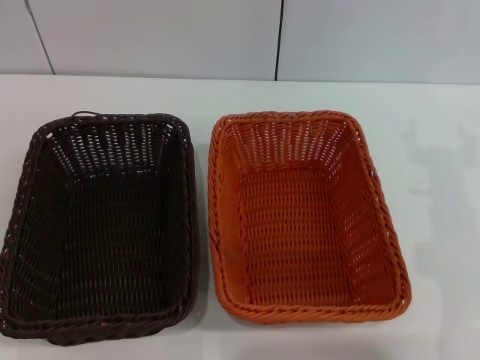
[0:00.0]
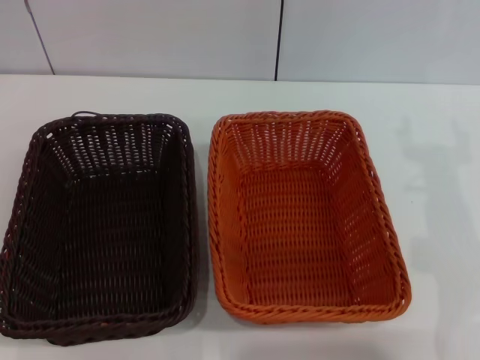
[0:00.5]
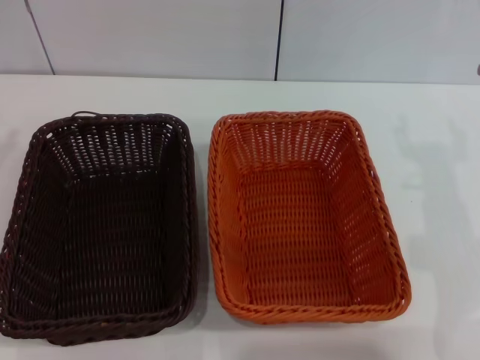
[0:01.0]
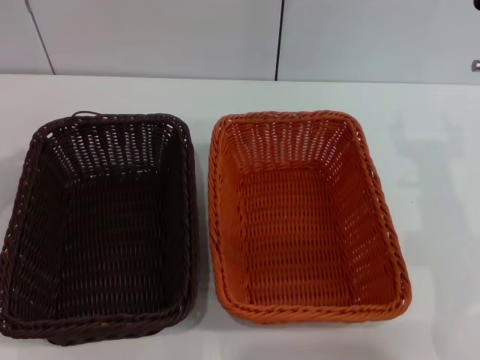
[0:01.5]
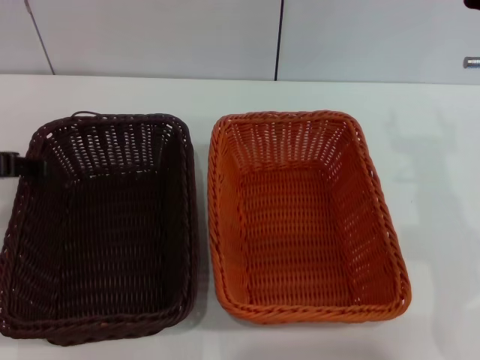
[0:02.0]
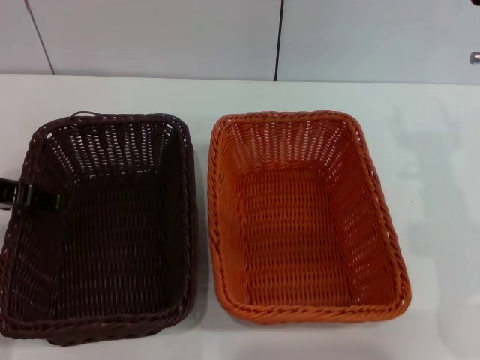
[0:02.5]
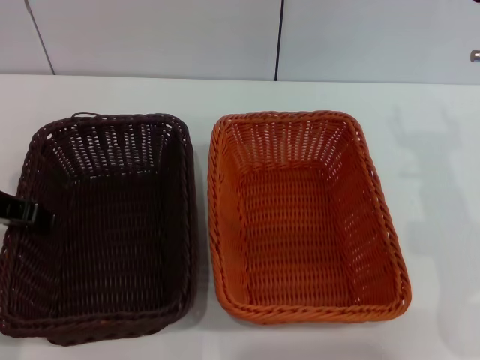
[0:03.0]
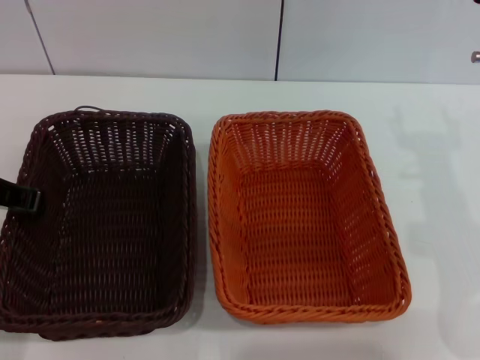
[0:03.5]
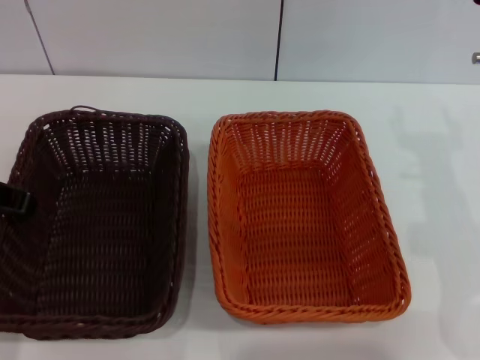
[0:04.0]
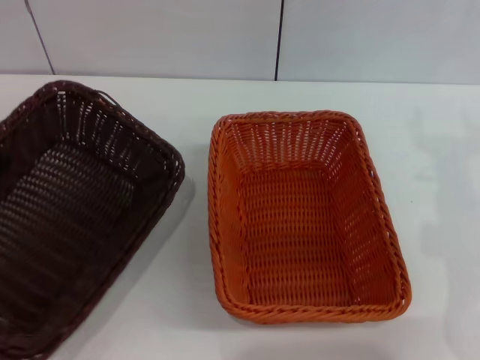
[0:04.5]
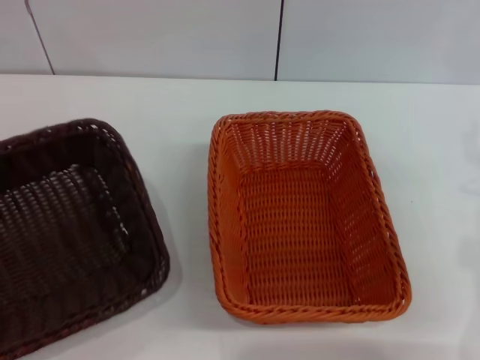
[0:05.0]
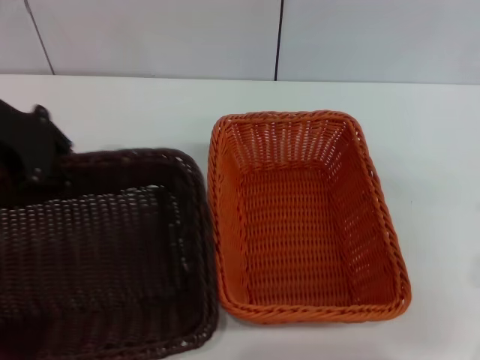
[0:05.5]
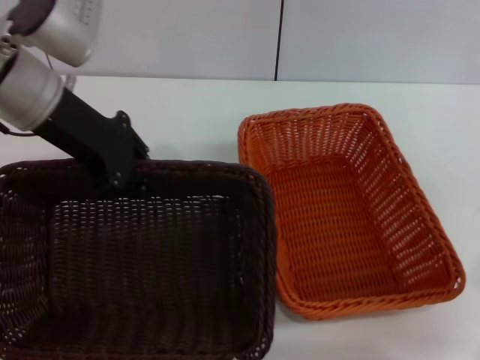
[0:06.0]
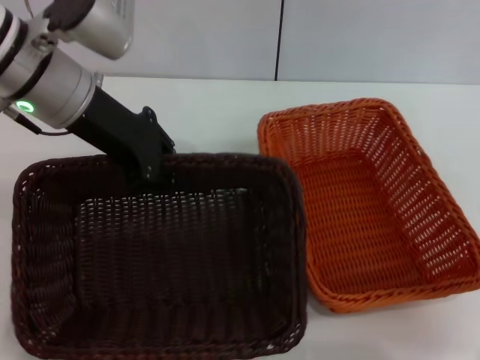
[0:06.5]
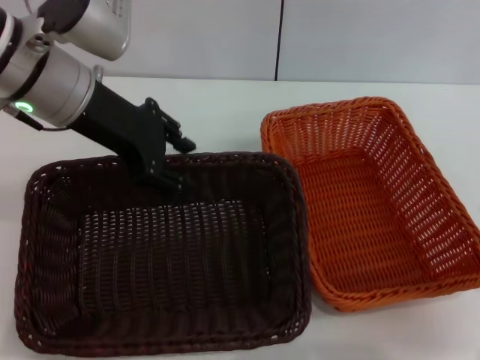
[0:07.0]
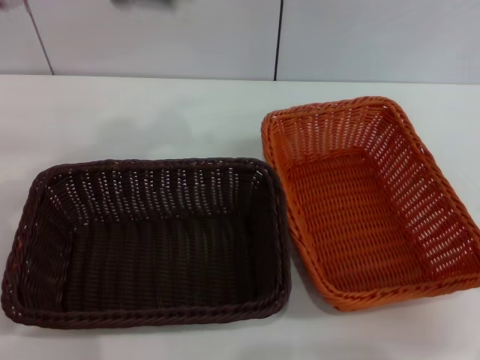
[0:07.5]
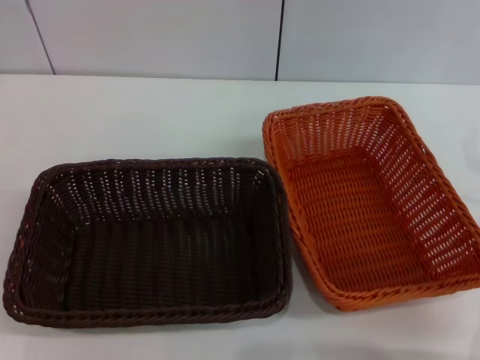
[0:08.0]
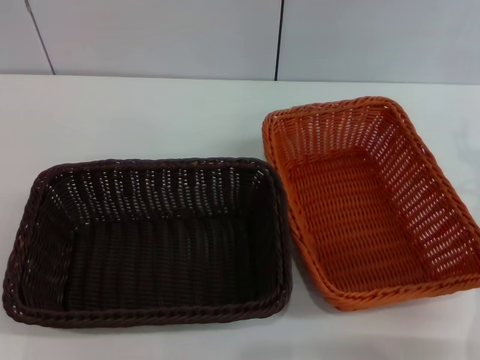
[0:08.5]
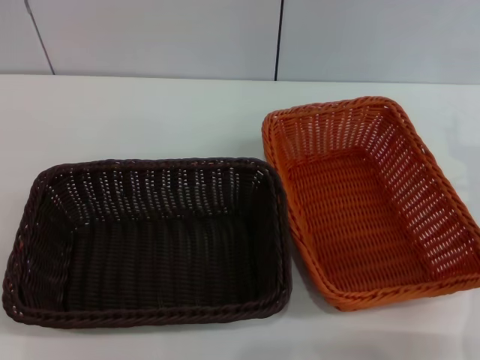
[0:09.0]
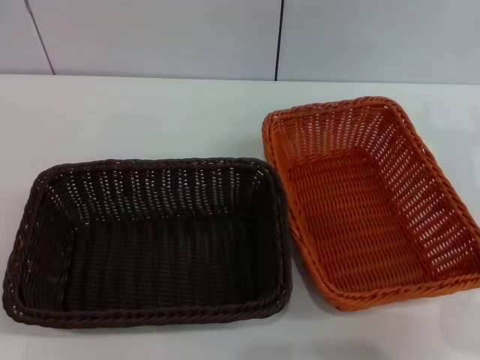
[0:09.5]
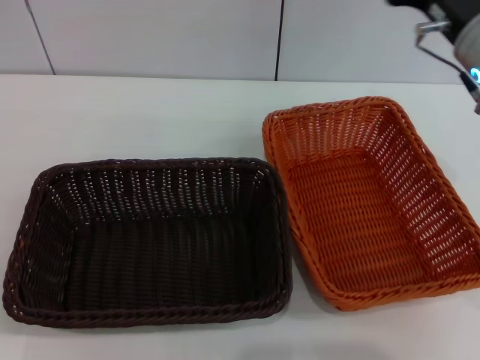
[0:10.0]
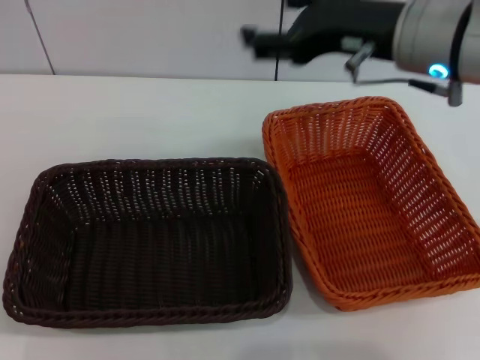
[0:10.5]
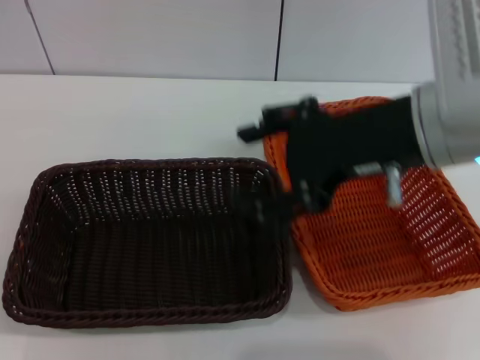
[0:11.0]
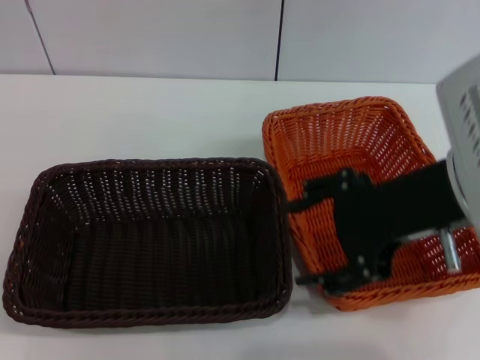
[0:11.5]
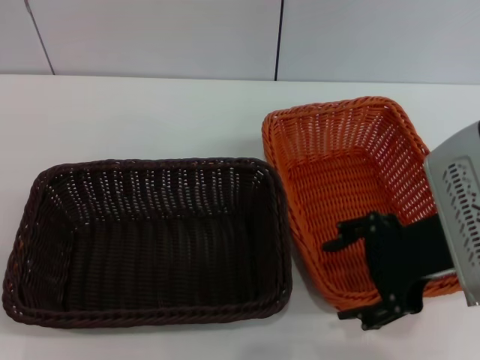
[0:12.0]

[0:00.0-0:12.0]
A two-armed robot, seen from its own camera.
Step, 0:00.0 to 0:04.0: Pick up the dark basket with the left gripper.
Step, 0:05.0 to 0:07.0: Place the dark basket in the center of view with the left gripper.
0:02.0 to 0:04.0: The left gripper closes up.
0:04.0 to 0:06.0: The right gripper shifts approximately 10 cm to the right and backward, while the left gripper goes some 10 cm to the right and forward.
0:06.0 to 0:08.0: The left gripper moves to the left, some 20 cm, and opens its fingers.
0:08.0 to 0:10.0: The right gripper travels upward, to the left and forward by about 15 cm.
0:10.0 to 0:12.0: The right gripper moves backward, approximately 10 cm.

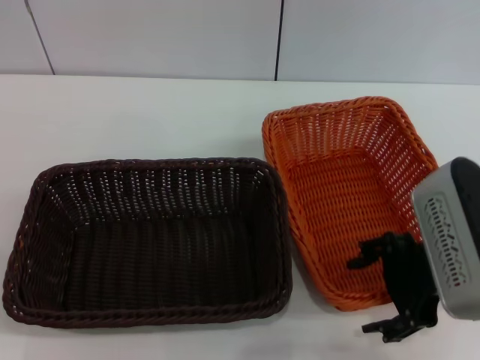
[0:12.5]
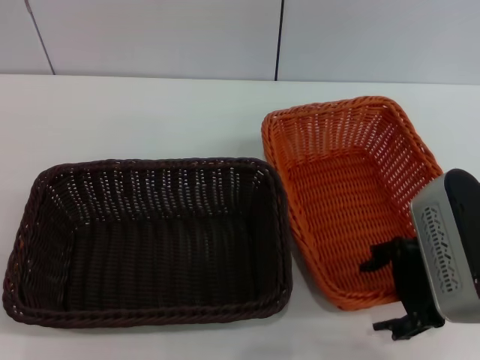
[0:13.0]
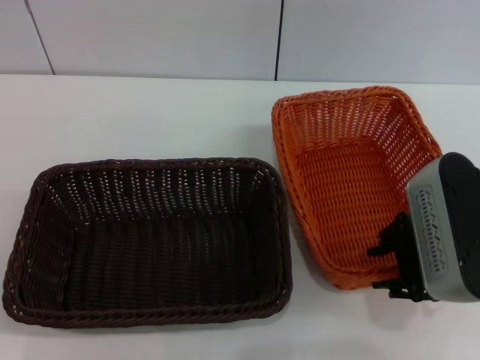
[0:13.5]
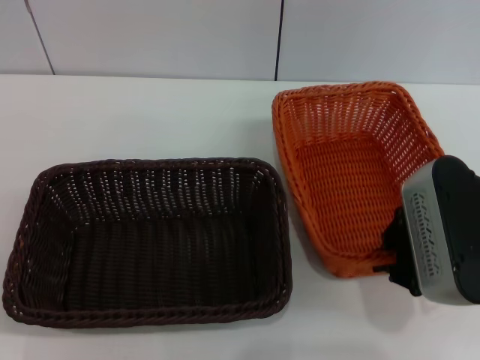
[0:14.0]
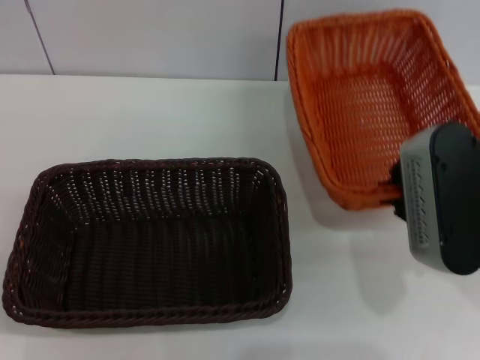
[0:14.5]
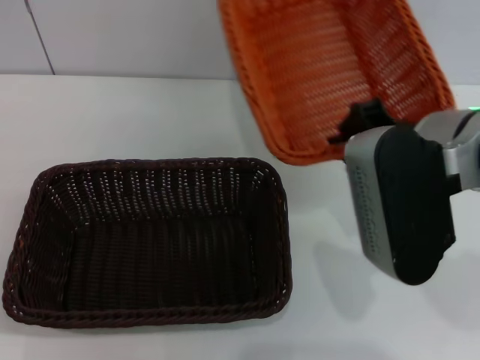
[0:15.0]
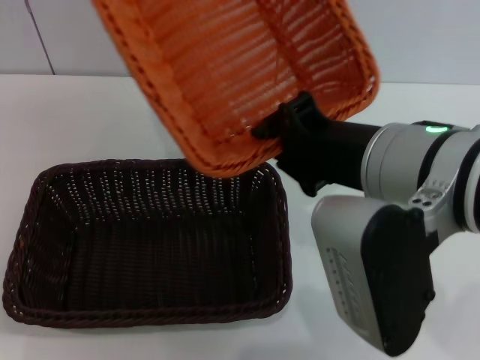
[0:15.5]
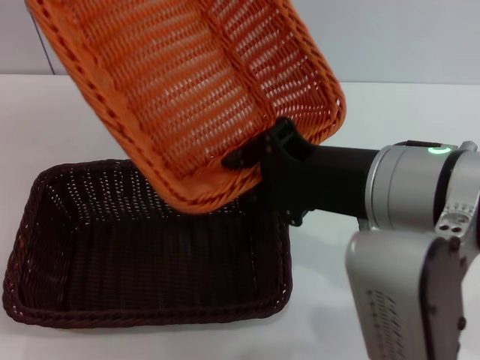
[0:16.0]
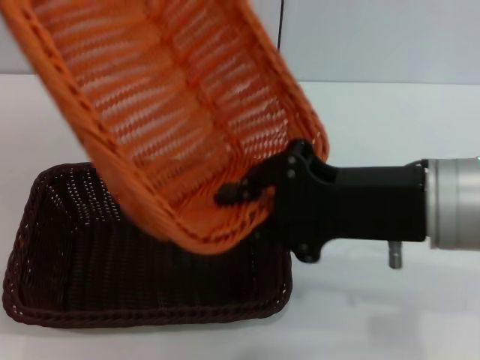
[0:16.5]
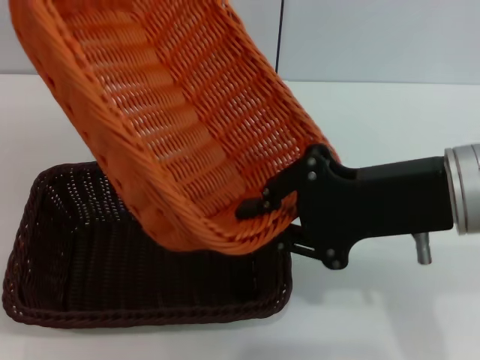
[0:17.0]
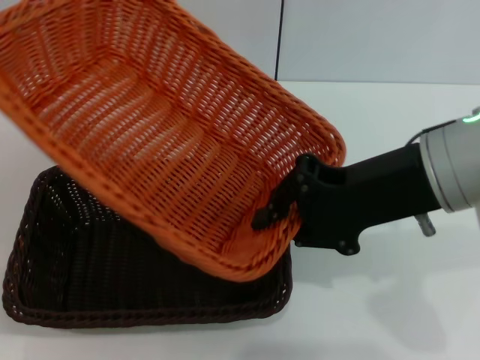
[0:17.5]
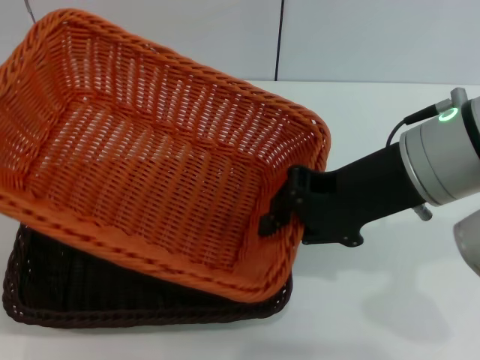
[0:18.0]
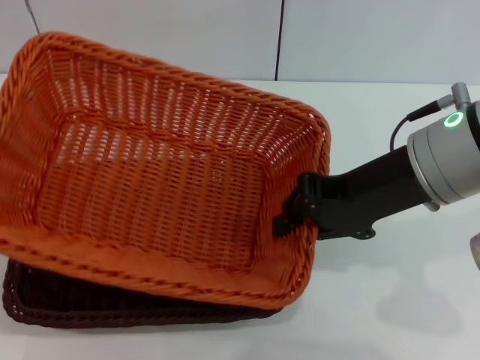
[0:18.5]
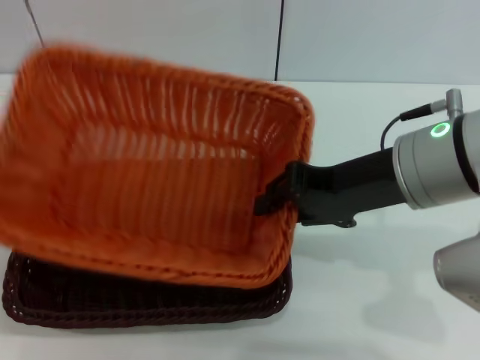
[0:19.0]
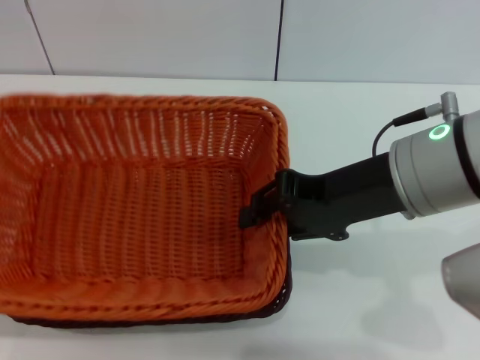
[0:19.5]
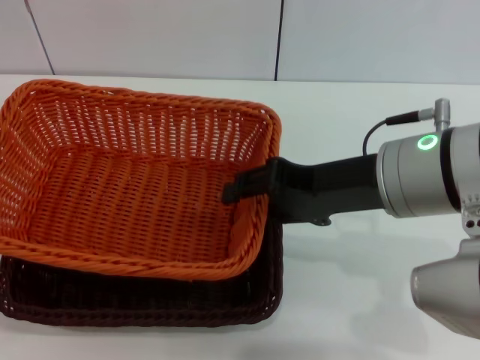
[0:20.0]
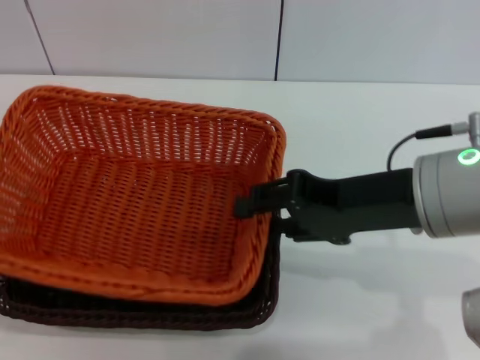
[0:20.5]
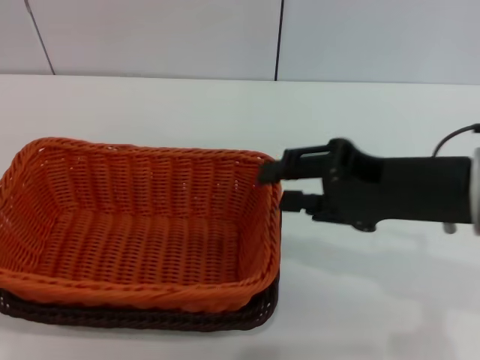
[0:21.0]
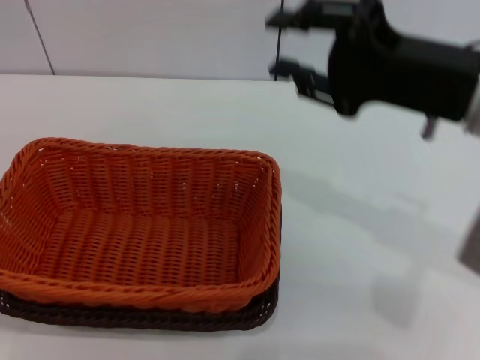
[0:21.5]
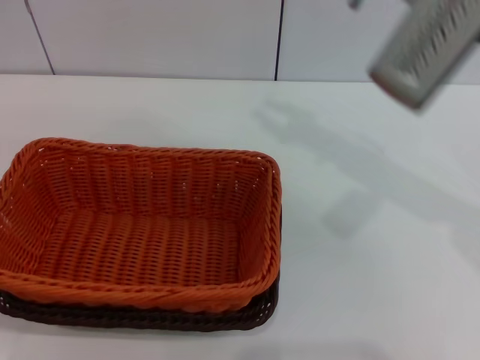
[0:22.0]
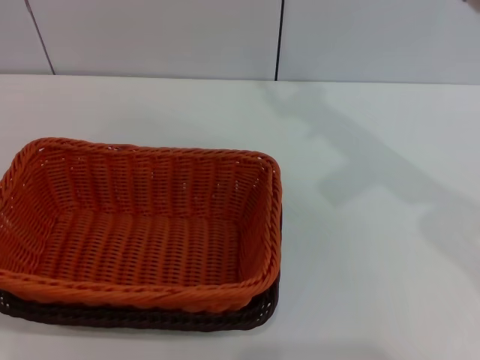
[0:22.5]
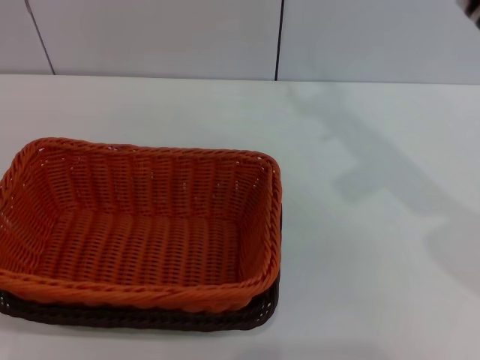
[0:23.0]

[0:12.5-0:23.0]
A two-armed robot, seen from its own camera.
Step, 0:14.5 to 0:20.5: Place the light basket on the dark basket with the right gripper.
0:12.5 to 0:14.5: The right gripper closes up.
0:14.5 to 0:16.5: The right gripper moves some 5 cm.
0:19.0 to 0:21.0: The right gripper shifts roughly 5 cm backward, and opens its fingers.
0:21.0 to 0:23.0: The right gripper is displaced forward by roughly 15 cm.
